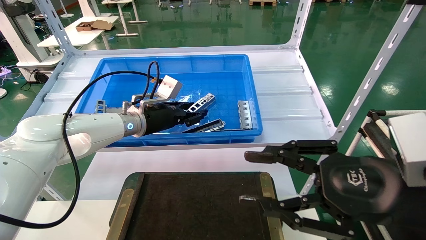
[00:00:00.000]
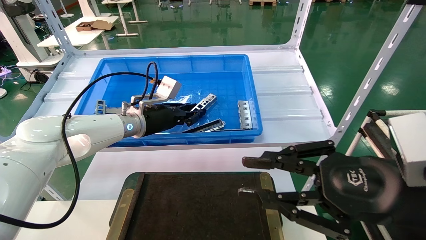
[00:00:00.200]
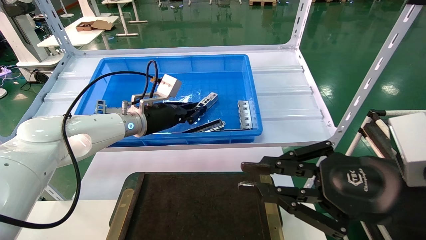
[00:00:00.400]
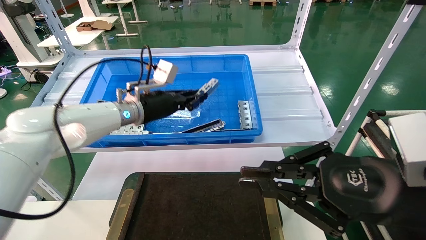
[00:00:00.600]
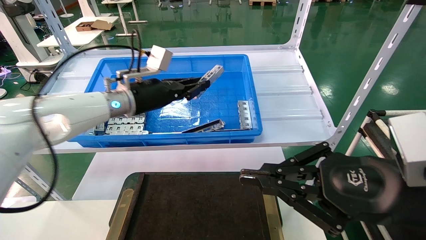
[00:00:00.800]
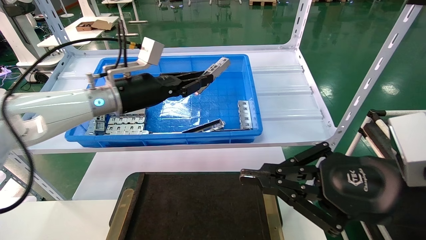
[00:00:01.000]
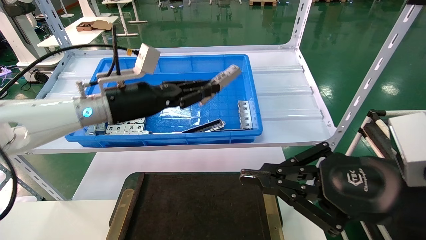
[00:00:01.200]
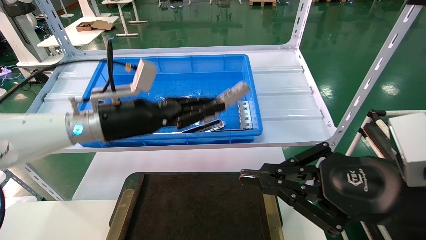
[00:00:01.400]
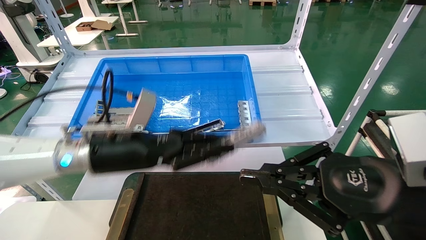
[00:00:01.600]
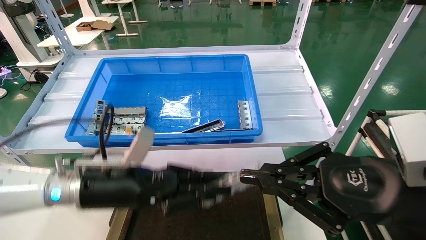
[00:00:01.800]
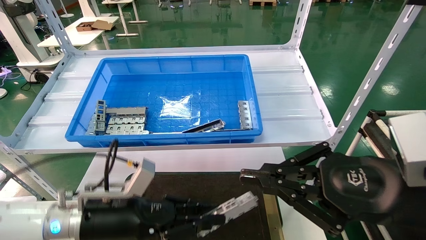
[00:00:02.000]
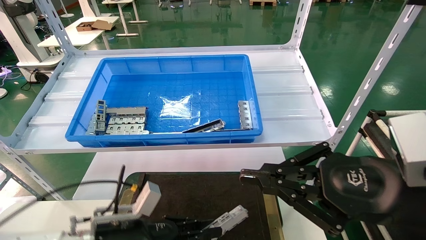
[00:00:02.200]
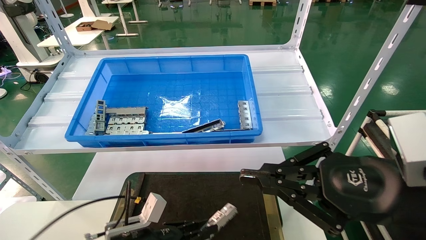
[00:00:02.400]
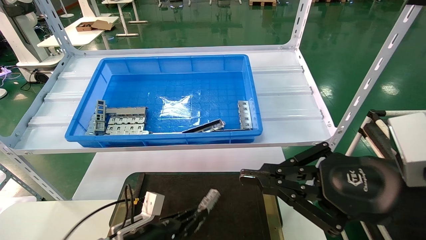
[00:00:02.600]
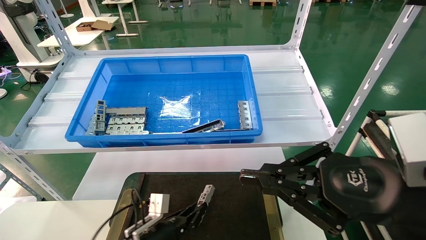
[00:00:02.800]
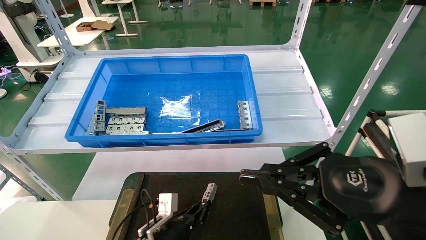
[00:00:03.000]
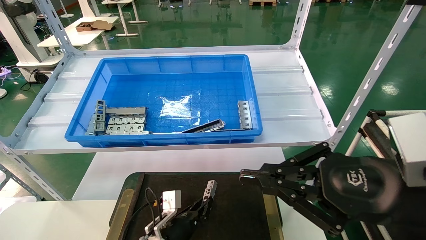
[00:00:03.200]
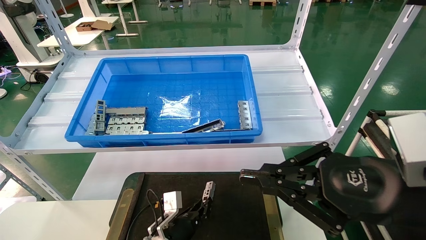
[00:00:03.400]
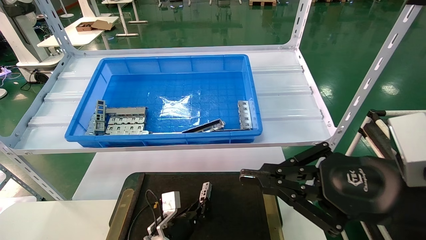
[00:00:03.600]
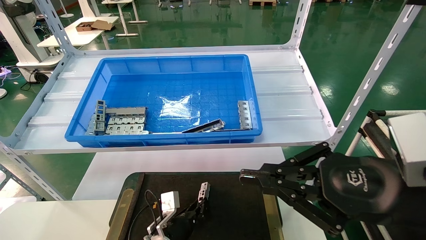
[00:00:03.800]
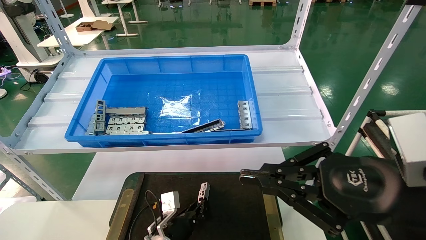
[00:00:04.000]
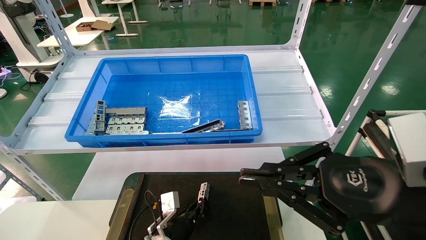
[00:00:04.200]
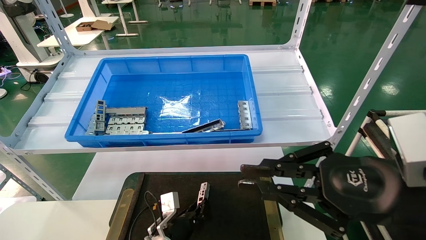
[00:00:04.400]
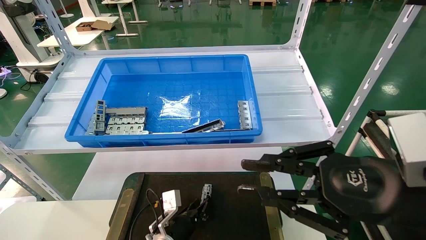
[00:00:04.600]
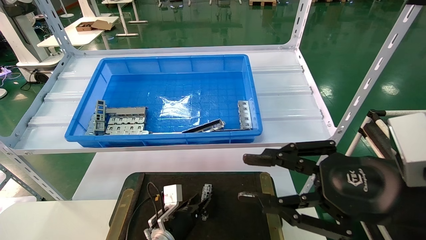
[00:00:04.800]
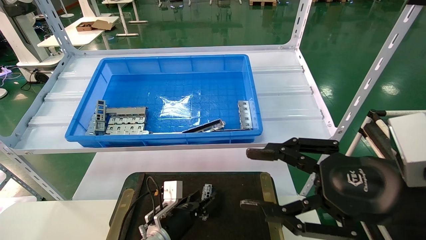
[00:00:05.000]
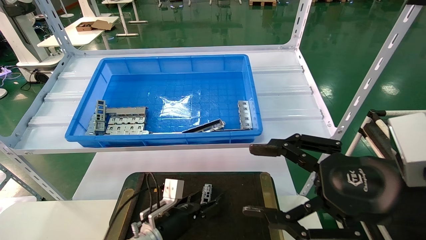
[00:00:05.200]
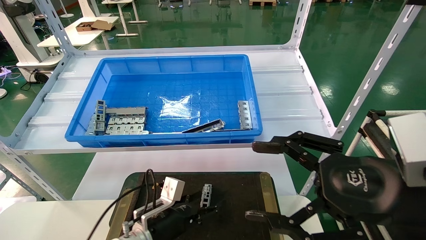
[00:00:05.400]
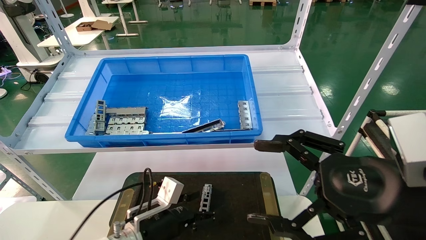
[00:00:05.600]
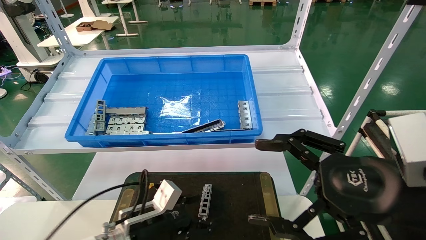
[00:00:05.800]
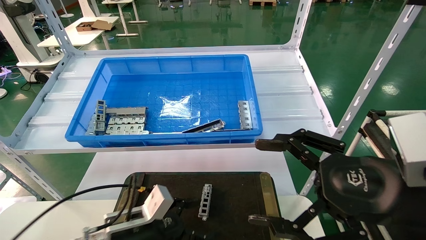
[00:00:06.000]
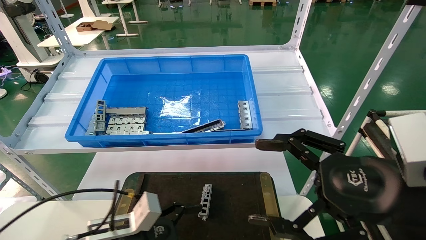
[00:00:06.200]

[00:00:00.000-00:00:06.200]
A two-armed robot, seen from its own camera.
Task of the whole recording: Grasp the part with one hand and place it on the black container.
Step, 00:00:01.000 to 00:00:04.600: Place the front USB bracket into the box.
00:00:00.000 to 00:00:01.600: The left gripper heads backward, covering some 15 cm, and closes up. Meanwhile the right gripper closes.
00:00:01.600 to 00:00:03.200: The left gripper heads downward, covering about 30 cm.
00:00:03.200 to 00:00:04.600: The grippers stay close to where they were, moving slightly.
00:00:04.600 to 00:00:06.200: The right gripper opens up. The left gripper is displaced upward, backward and to the left by about 20 cm, and opens up.
